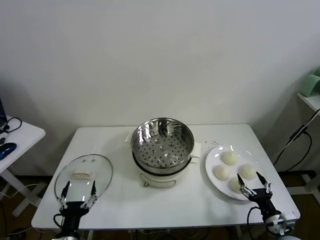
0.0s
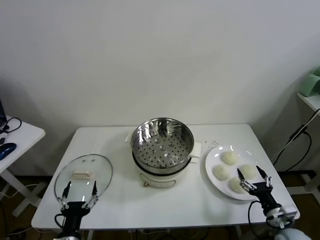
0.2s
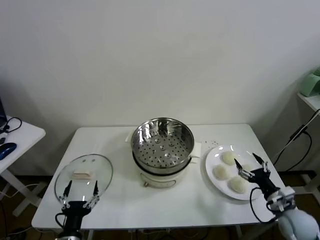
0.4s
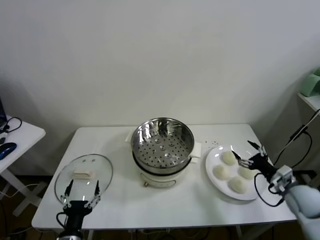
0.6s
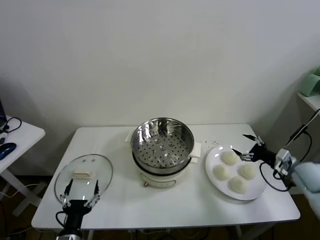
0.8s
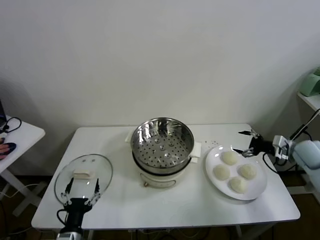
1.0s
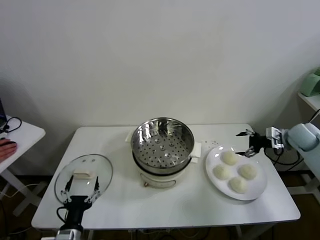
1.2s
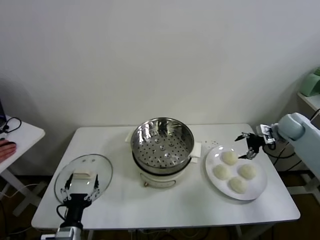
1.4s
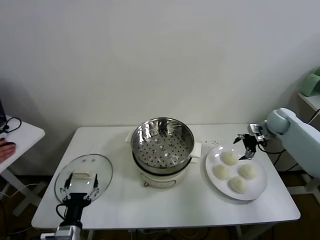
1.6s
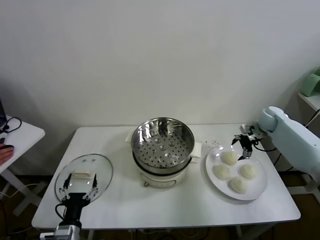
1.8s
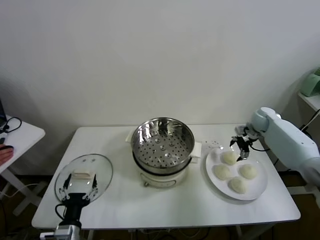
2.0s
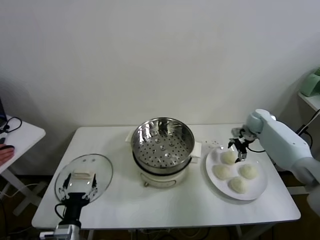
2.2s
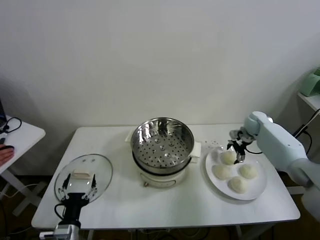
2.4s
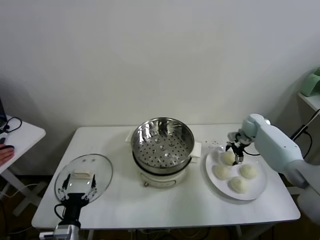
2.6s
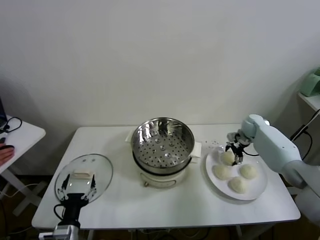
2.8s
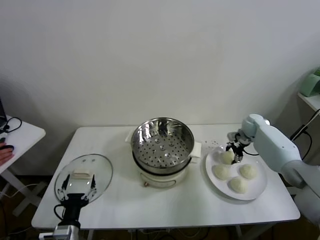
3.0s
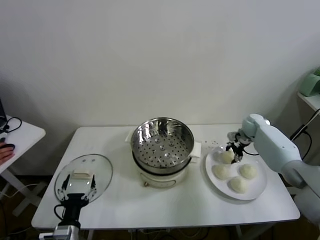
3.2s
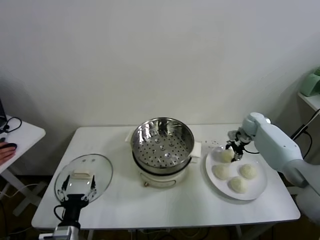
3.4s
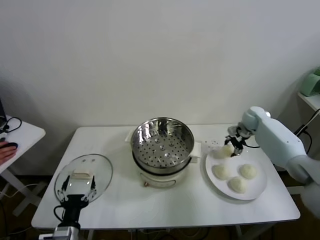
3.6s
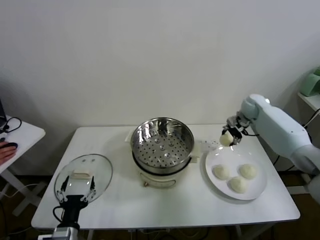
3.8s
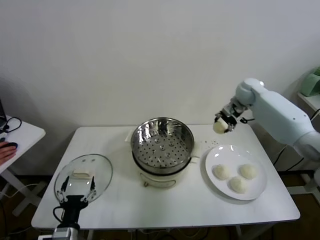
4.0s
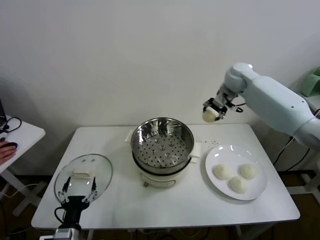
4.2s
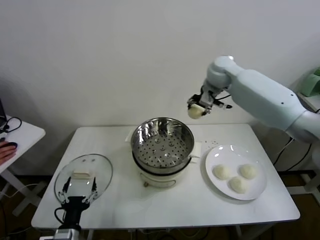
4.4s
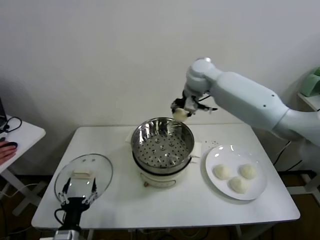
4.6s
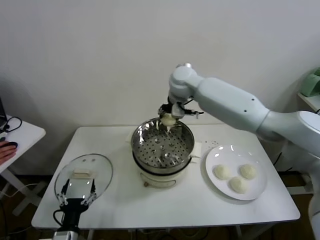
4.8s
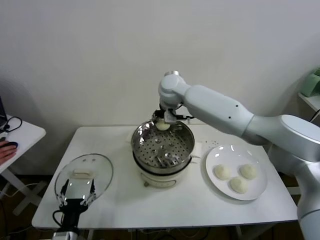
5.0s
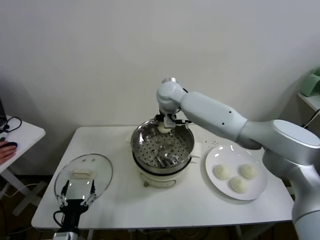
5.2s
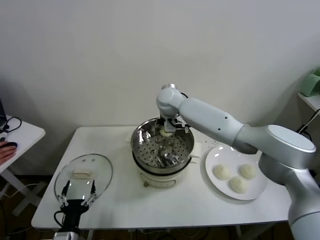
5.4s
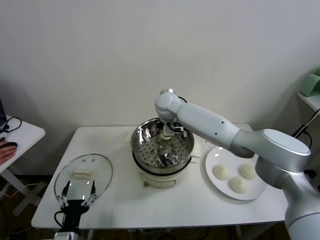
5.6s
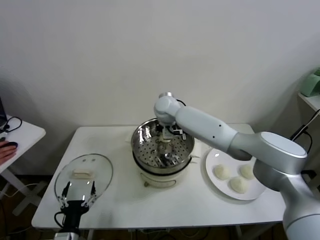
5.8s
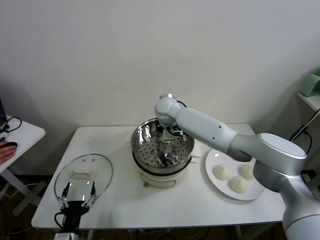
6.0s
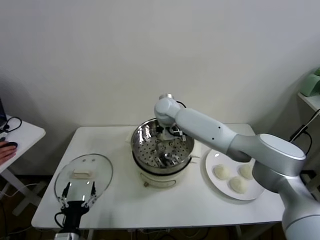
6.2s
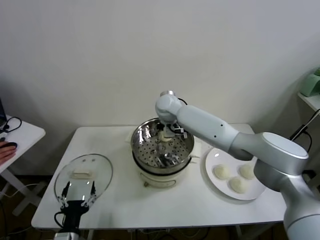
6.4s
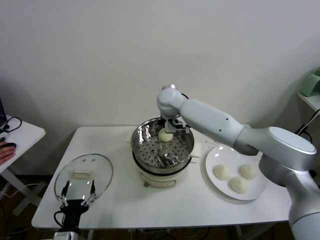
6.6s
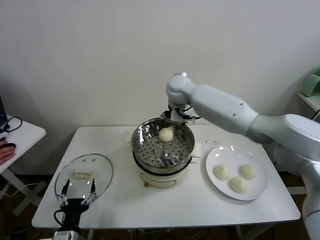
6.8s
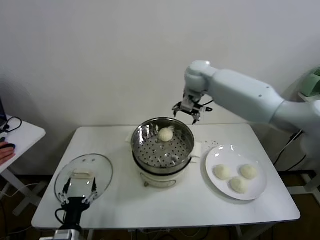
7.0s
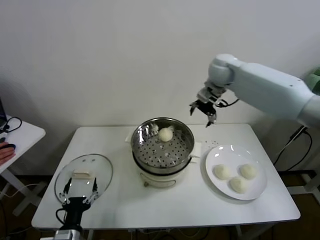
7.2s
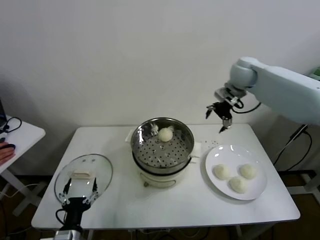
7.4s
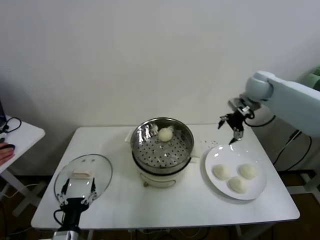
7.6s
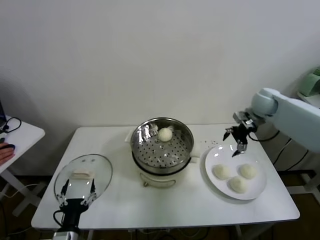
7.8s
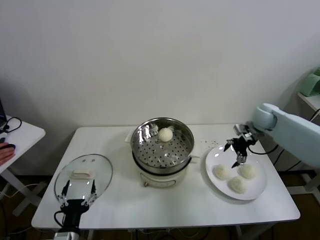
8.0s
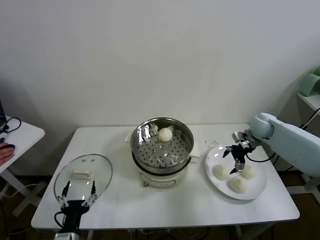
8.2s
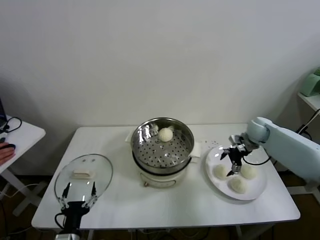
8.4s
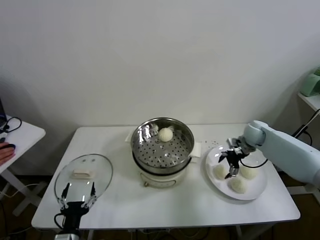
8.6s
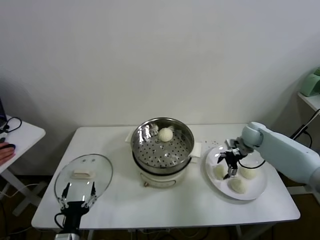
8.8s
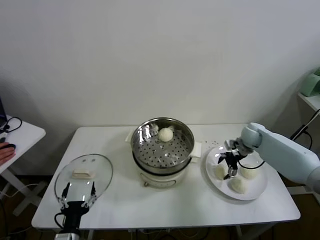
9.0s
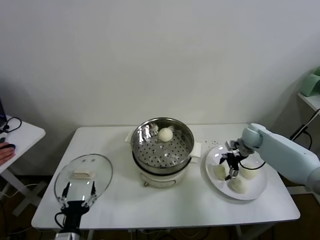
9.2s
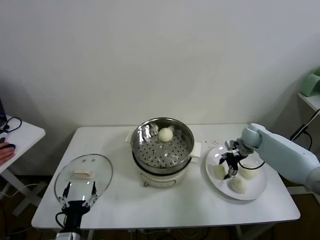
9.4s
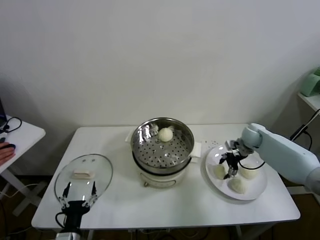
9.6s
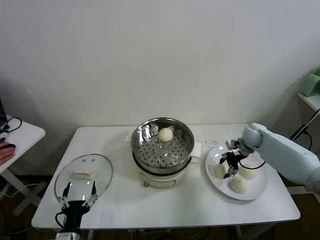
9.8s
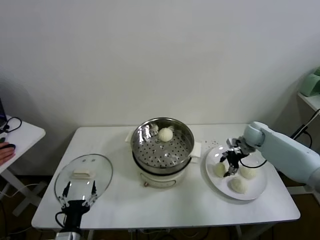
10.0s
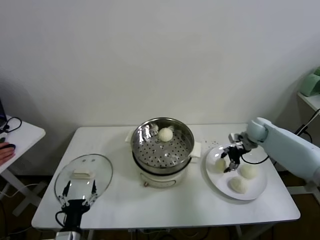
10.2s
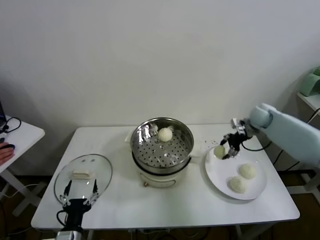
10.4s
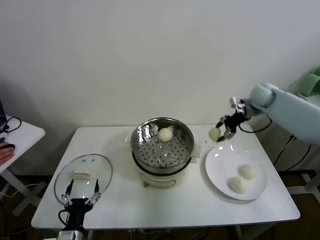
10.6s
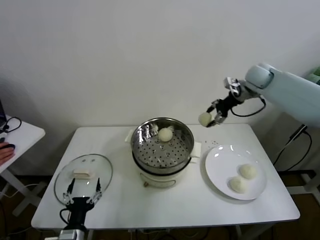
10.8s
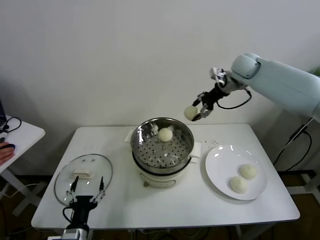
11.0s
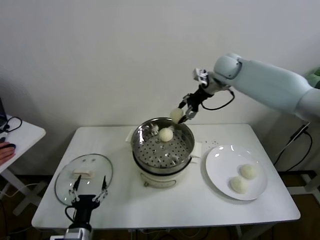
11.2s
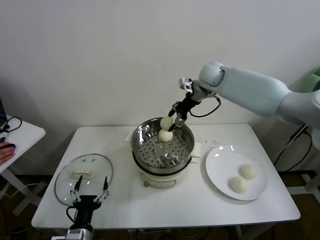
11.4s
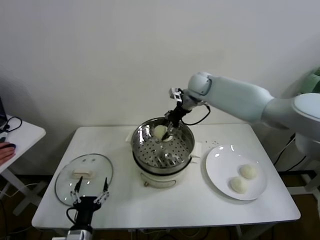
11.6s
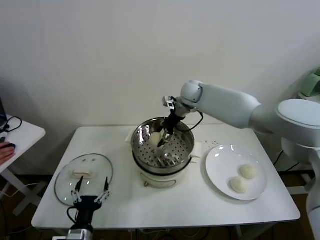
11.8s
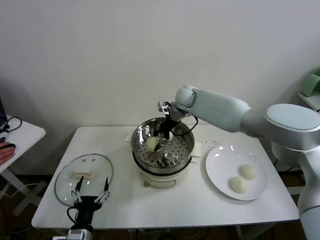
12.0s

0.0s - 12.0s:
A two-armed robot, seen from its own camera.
Task of the whole recording: take steamed baozi put them in steamer.
Step, 0.0s - 2.8s: Grasp the baozi in the plate with right gripper.
Step, 3.0s - 6.2s: Place the baozi on the steamer with right gripper.
Step, 6.4s - 9.2s: Grasp the baozi in the plate with right gripper.
1.6s - 3.0s: The right gripper is displaced downward by about 5 cm, and closes up.
3.0s - 4.4s: The right gripper moves upward and to the left, about 35 cm.
4.4s - 6.0s: The right gripper goes roughly 20 cm downward and to the left, and opens its fingers.
6.0s - 7.6s: The right gripper is displaced to the right by some 35 cm.
7.6s - 9.0s: The right gripper travels downward by about 20 cm.
9.0s - 10.4s: The right gripper goes about 10 cm upward, and closes its fingers.
10.4s - 12.0s: The right gripper travels to the left by roughly 30 cm.

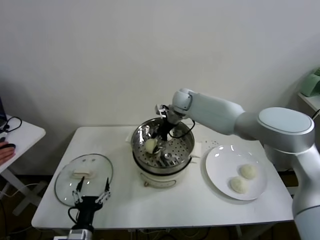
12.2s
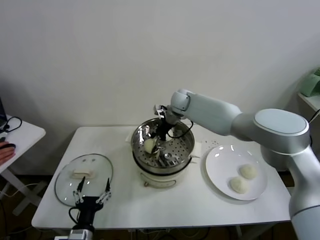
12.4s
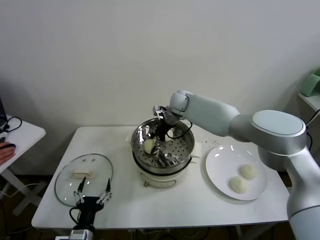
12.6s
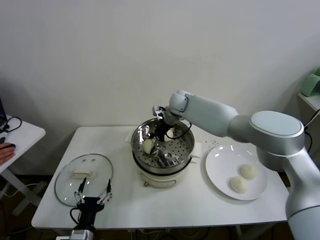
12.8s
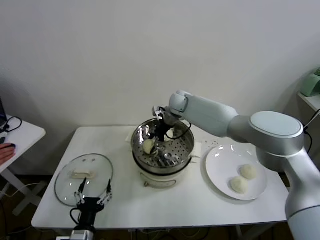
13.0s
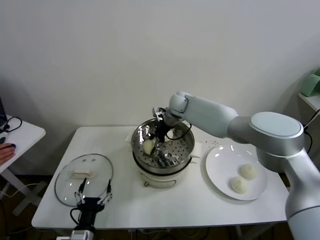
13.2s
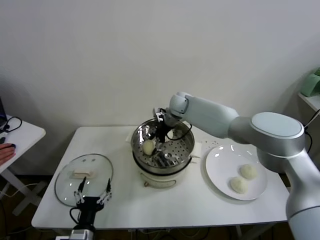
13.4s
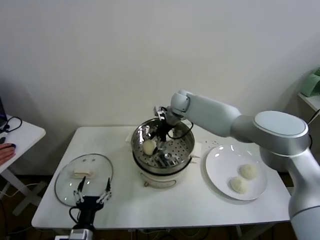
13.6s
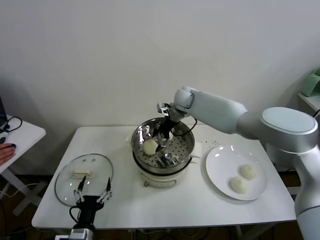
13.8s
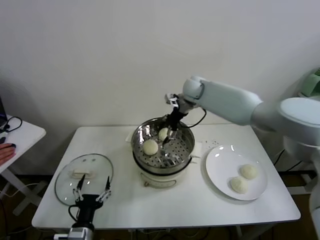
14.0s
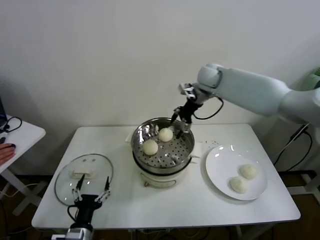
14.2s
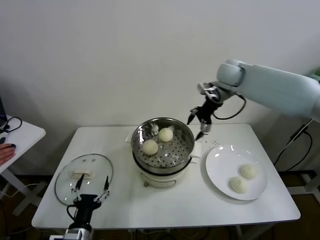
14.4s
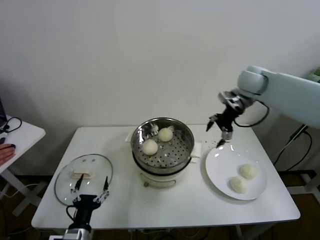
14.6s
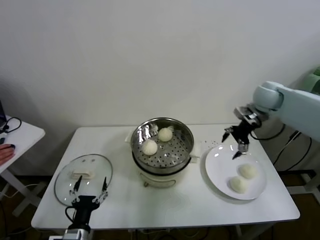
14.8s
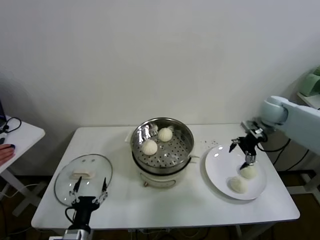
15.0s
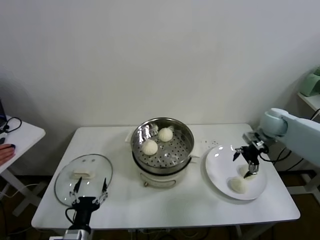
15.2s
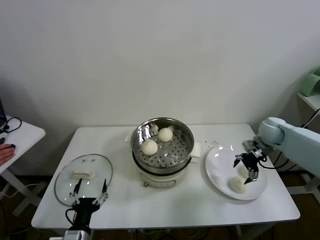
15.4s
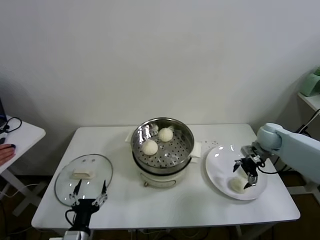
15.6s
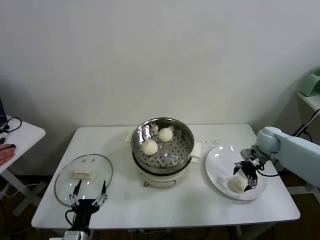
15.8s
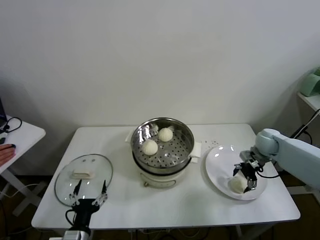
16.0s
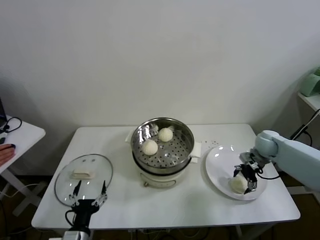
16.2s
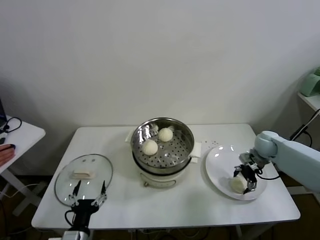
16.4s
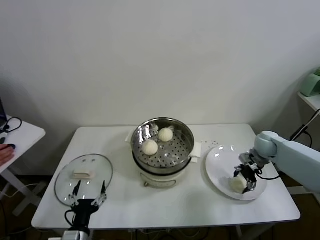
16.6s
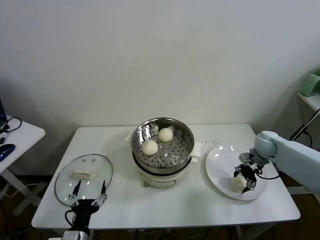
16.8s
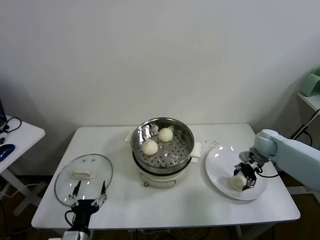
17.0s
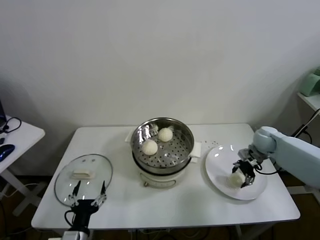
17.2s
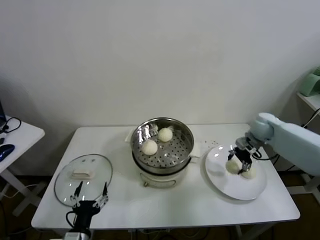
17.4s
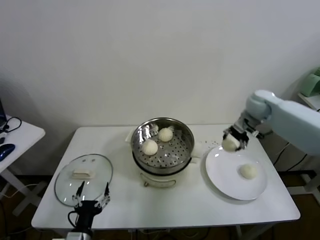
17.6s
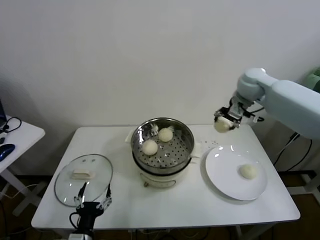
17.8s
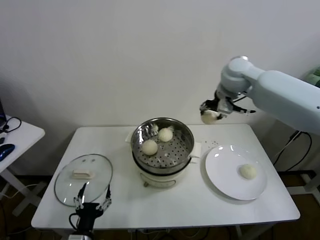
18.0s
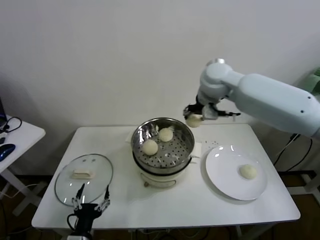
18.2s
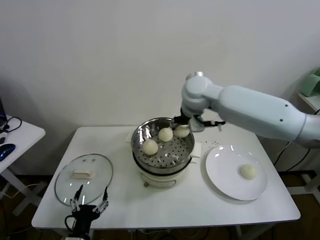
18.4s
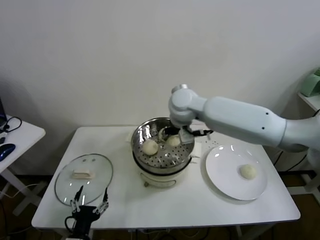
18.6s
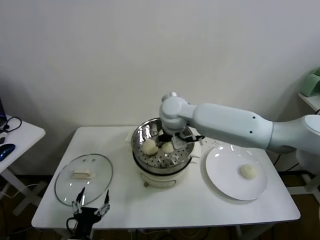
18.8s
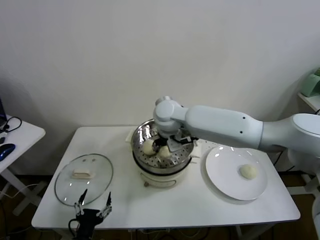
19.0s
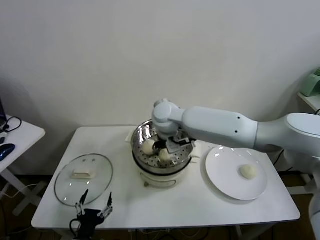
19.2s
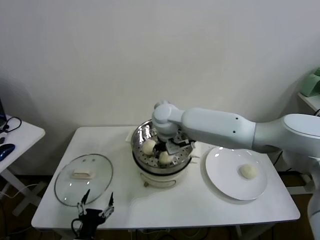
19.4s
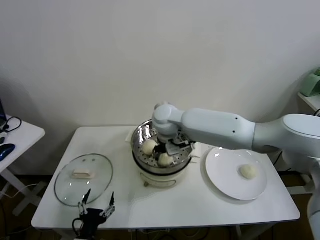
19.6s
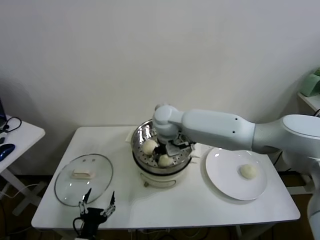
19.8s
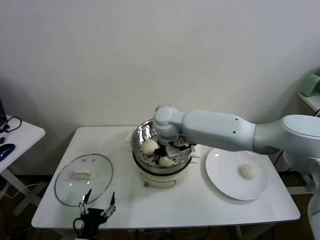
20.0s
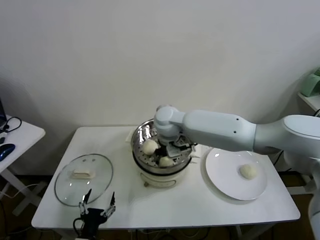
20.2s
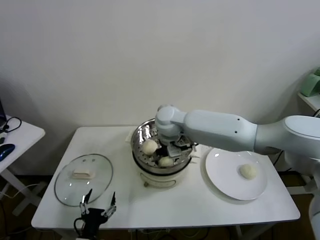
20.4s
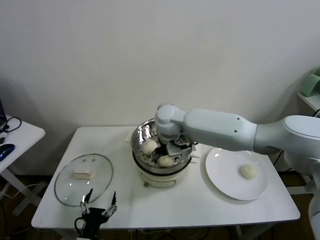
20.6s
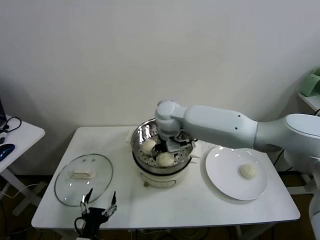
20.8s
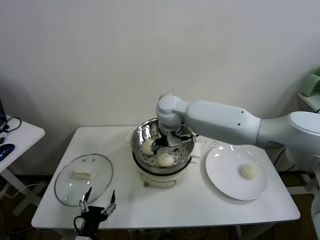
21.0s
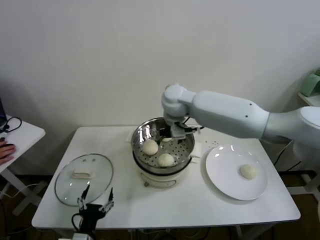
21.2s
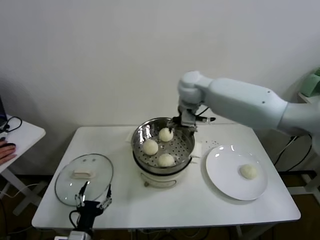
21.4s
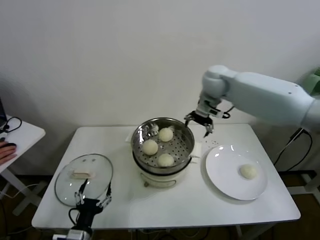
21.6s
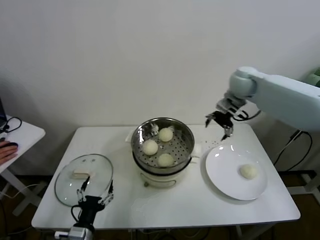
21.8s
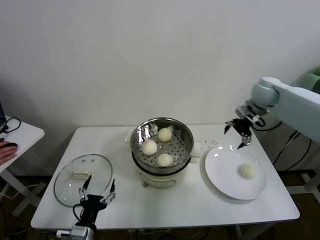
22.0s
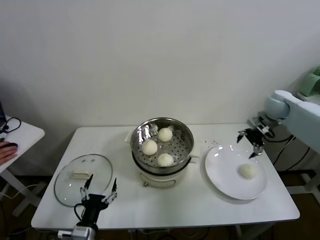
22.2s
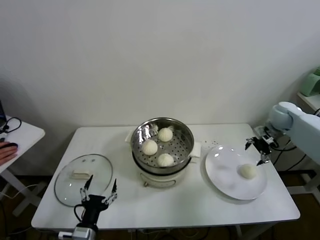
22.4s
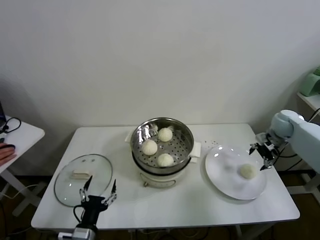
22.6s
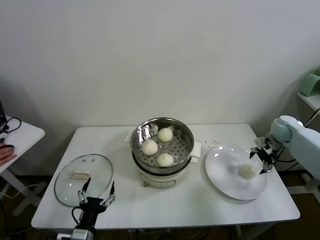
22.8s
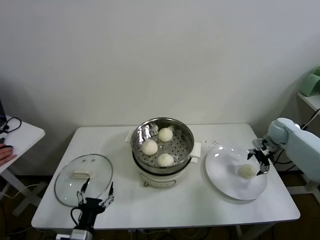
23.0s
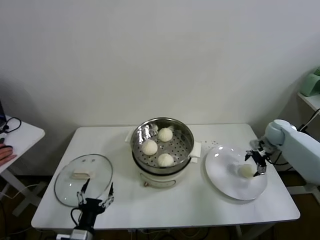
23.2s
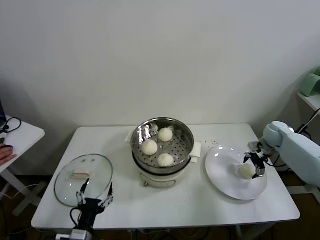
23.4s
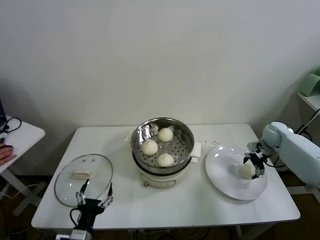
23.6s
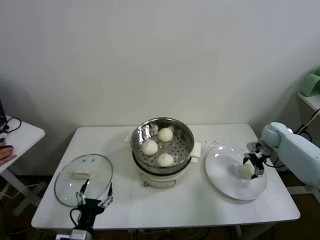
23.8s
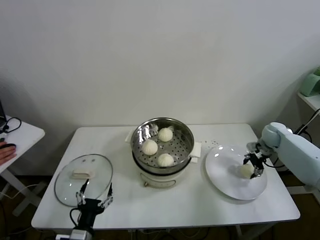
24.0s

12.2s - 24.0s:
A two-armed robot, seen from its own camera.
Task of the whole recording: take steamed baozi put them in steamer.
Step, 13.8s - 16.4s: Grasp the baozi in the plate with right gripper.
Step, 16.6s - 20.6s: Place the baozi on the steamer with right gripper.
Step, 20.8s - 23.8s: Grasp the baozi in the plate with right gripper.
12.2s - 13.6s: The right gripper opens its fingers.
13.6s - 15.2s: The right gripper is displaced to the right by roughly 30 cm.
15.2s - 16.6s: The right gripper shifts approximately 10 cm downward, and closes its fingers.
16.6s - 18.2s: The right gripper is displaced upward and to the left by some 40 cm.
18.2s - 19.6s: The right gripper is displaced to the left and downward by about 15 cm.
19.6s - 21.0s: The right gripper opens its fingers.
21.0s - 22.6s: The right gripper heads to the right, covering roughly 40 cm.
22.6s - 24.0s: The right gripper shifts approximately 5 cm downward, and closes.
